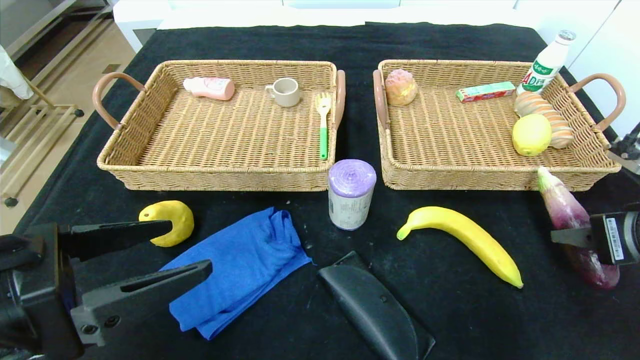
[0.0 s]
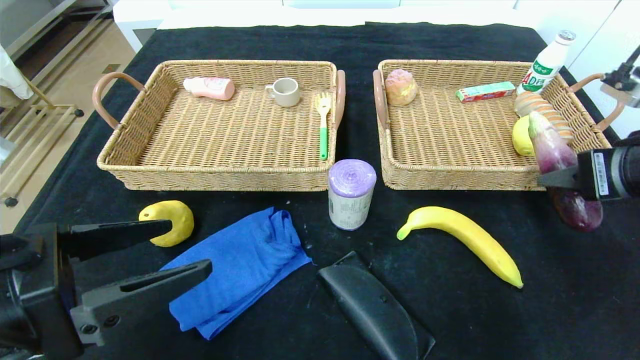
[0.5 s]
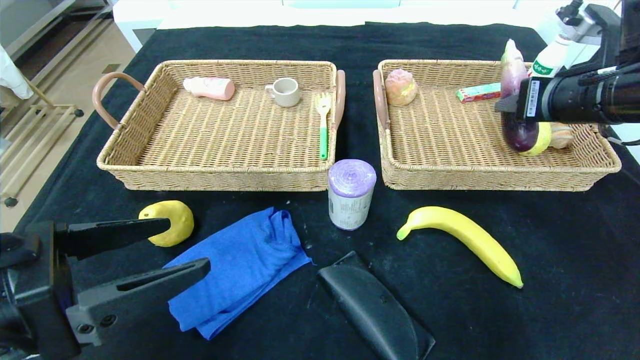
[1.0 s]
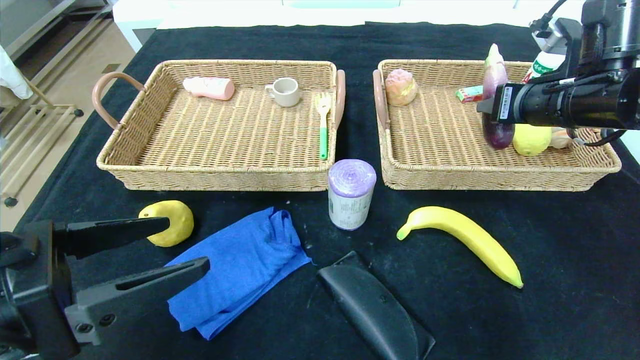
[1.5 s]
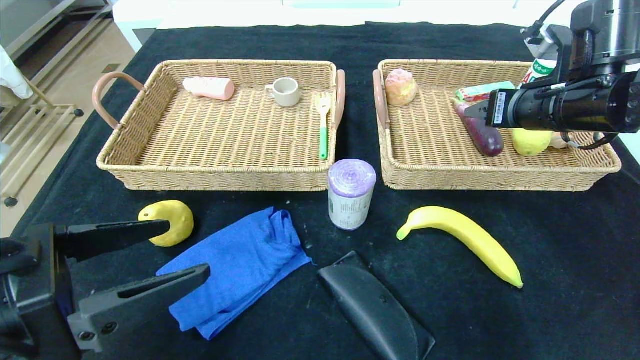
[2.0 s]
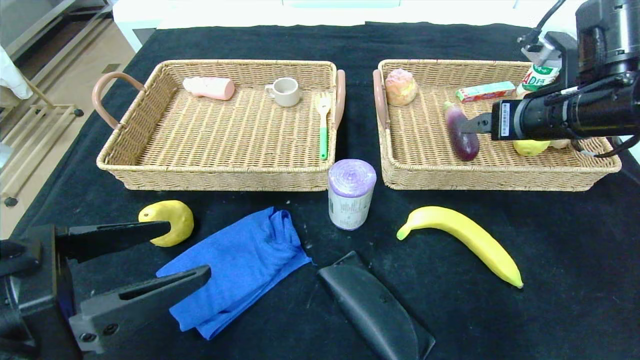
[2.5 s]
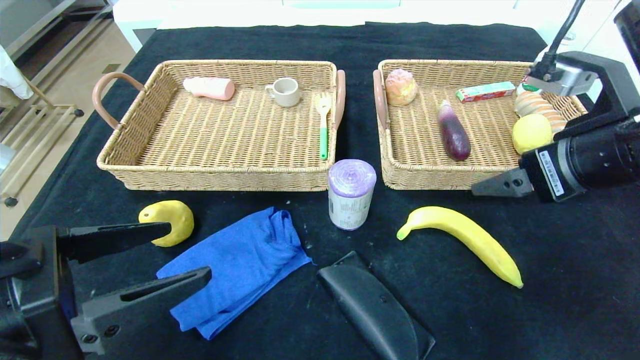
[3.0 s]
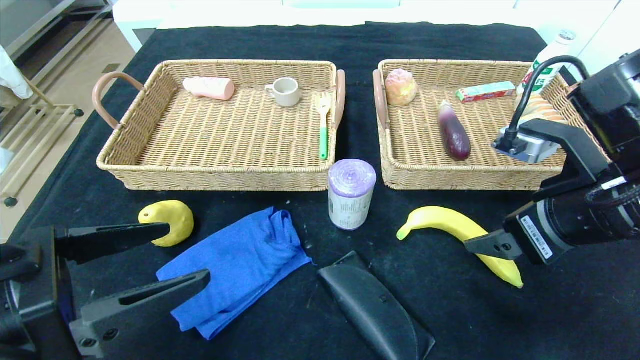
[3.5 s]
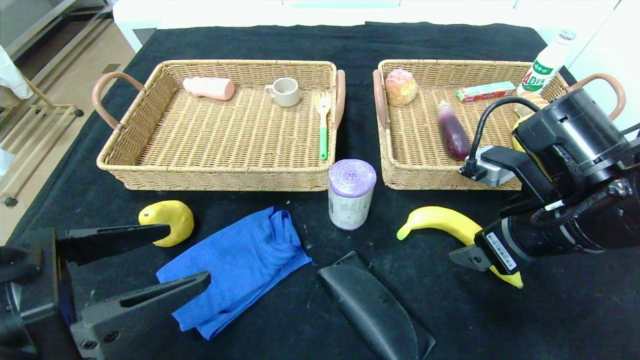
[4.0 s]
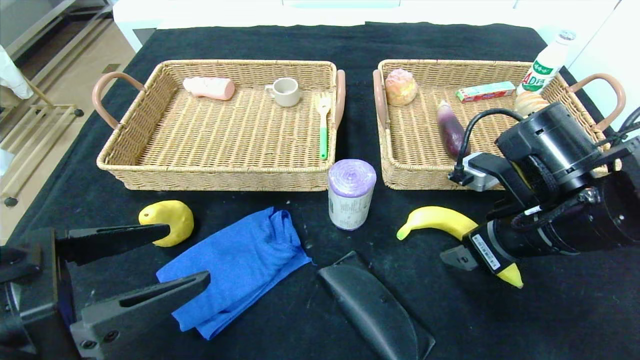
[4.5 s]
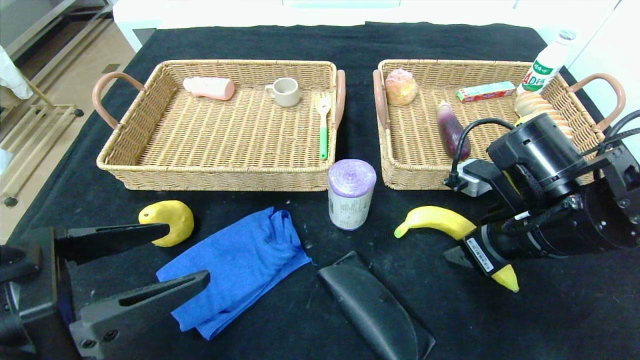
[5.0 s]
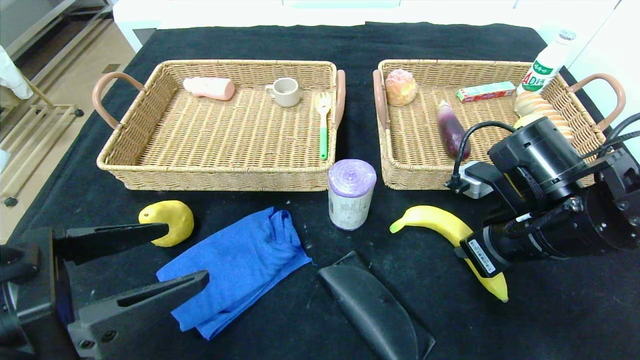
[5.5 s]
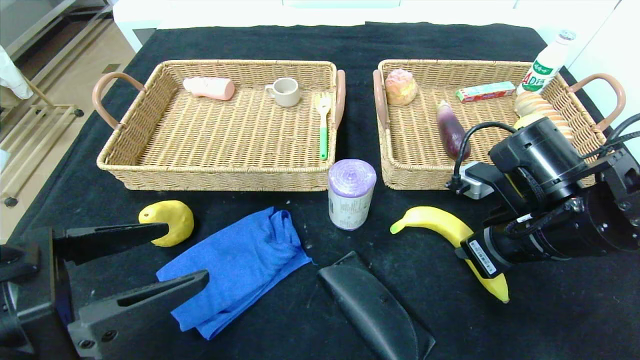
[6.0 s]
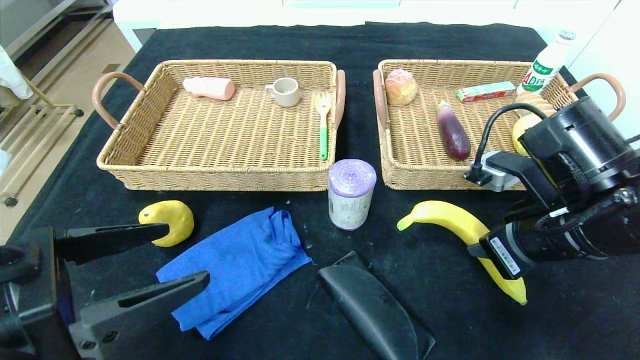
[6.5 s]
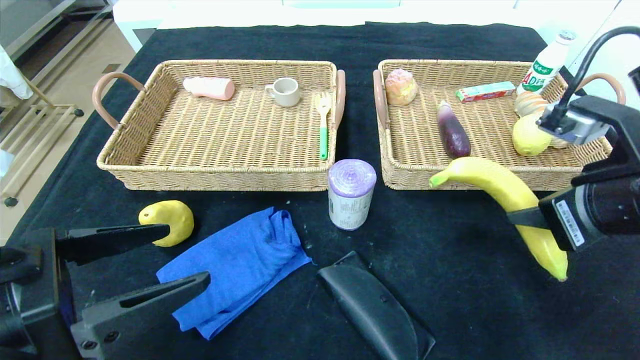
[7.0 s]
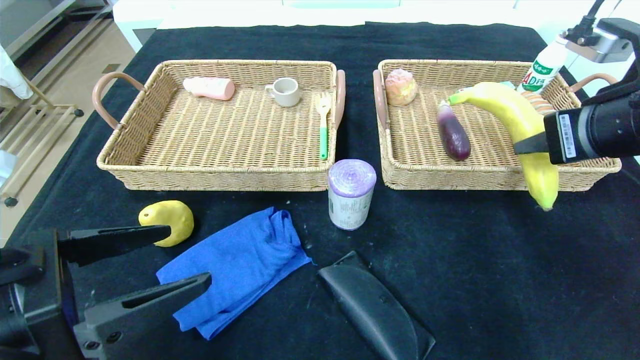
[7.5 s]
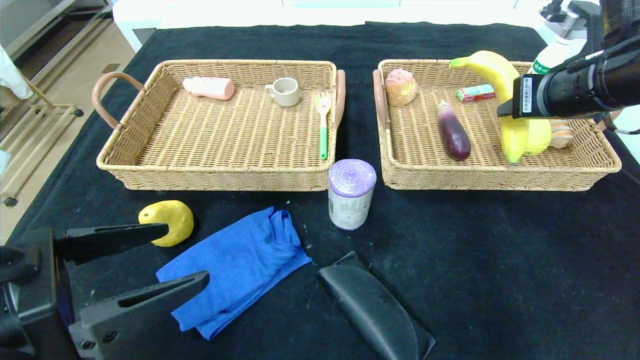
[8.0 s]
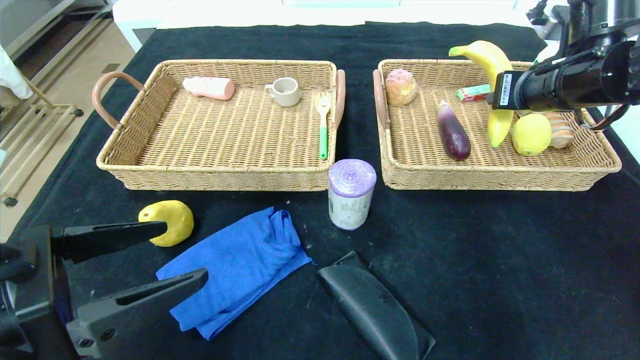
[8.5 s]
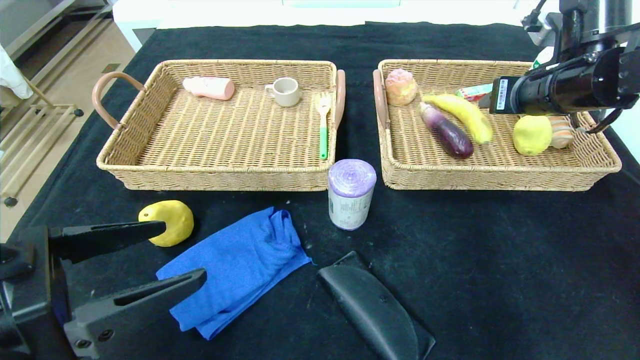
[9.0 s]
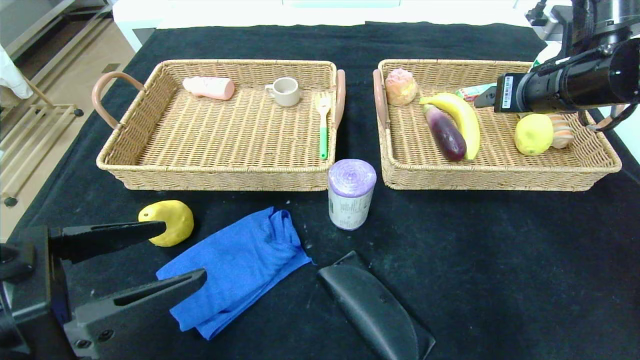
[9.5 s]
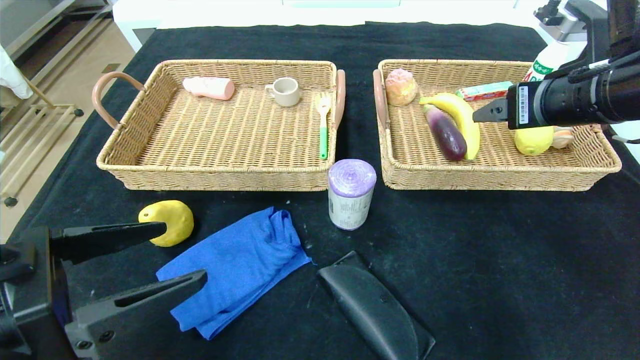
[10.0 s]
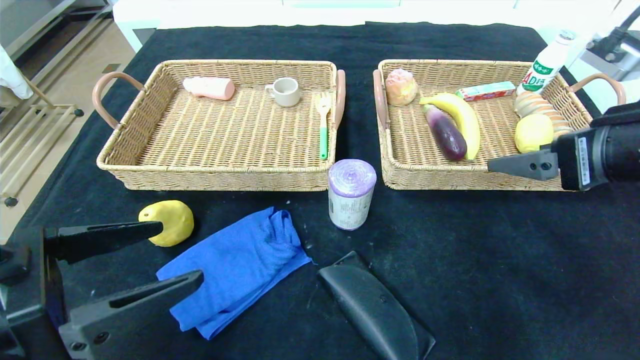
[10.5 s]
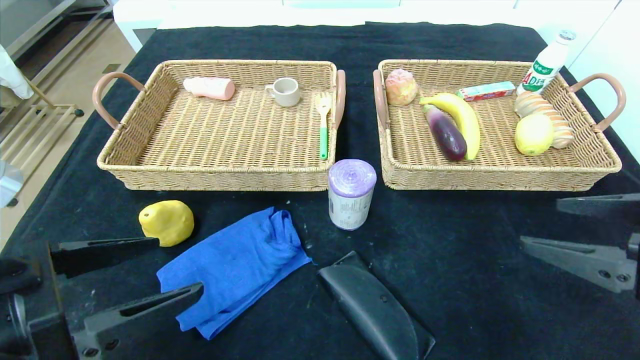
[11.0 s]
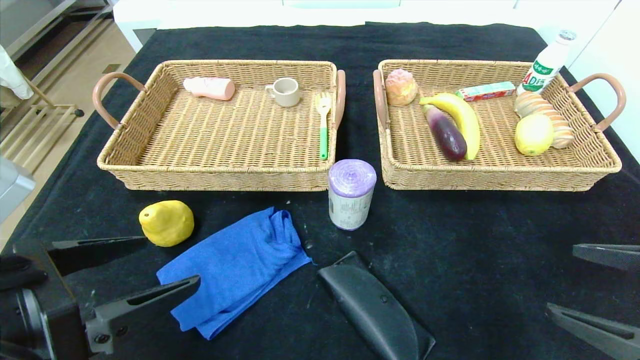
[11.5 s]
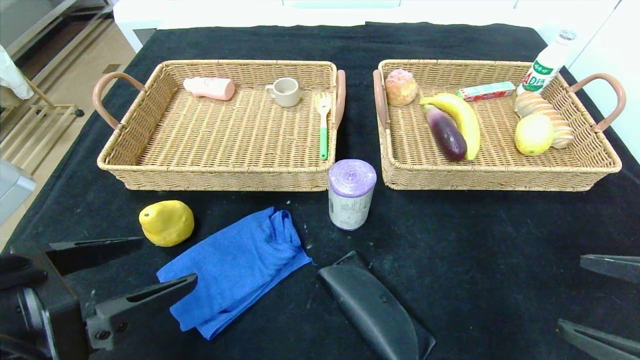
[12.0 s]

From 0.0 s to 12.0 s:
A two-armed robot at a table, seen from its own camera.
Step, from 0.0 s to 3.0 s: Pick up the eggplant and put it in the right basket.
Step, from 3.5 s to 11.0 s: Pick up the banana and put it in the right basket.
From 0.0 s to 2.0 s: The right gripper heads forward and upward, covering roughly 15 cm, and opens.
From 2.0 s to 4.0 s: The right gripper heads backward, downward and to the left, covering approximately 15 cm.
From 4.0 s to 6.0 s: The right gripper closes up.
From 6.0 s to 8.0 s: The right gripper goes approximately 15 cm upward, forward and to the right.
From 8.0 s to 10.0 s: The right gripper opens up.
From 10.0 s to 12.0 s: The right gripper travels backward and downward by about 20 cm.

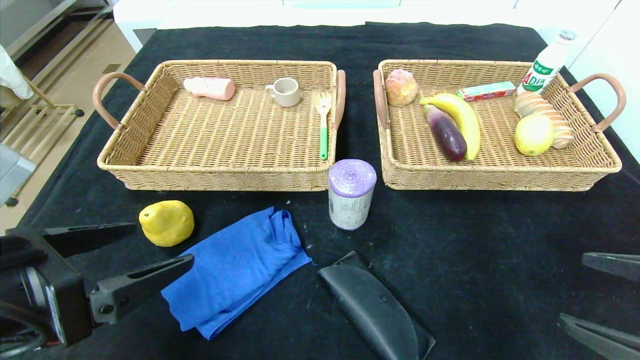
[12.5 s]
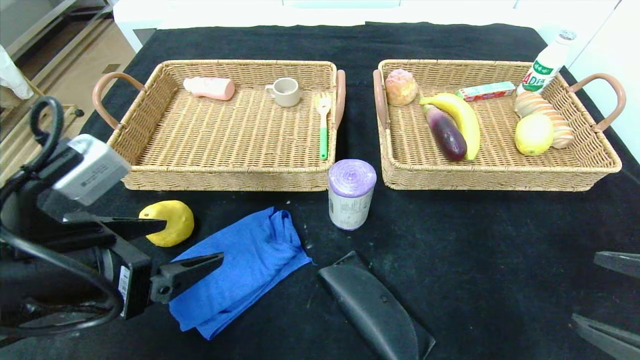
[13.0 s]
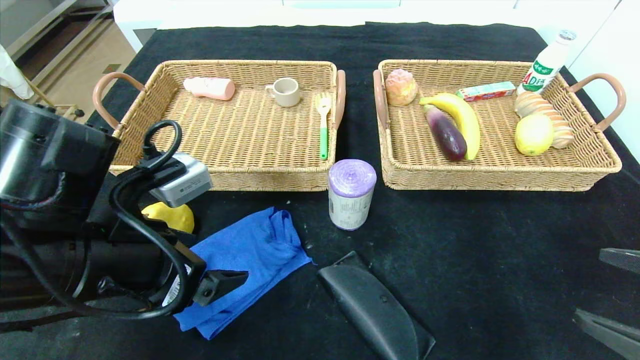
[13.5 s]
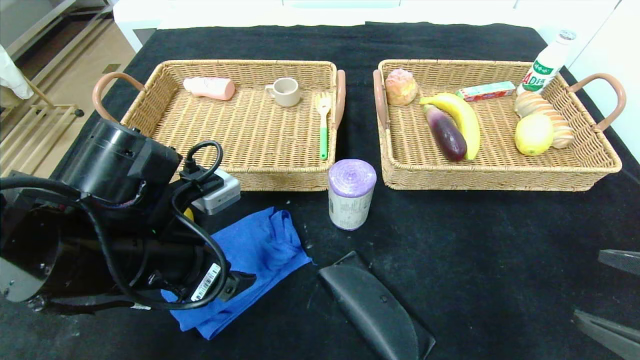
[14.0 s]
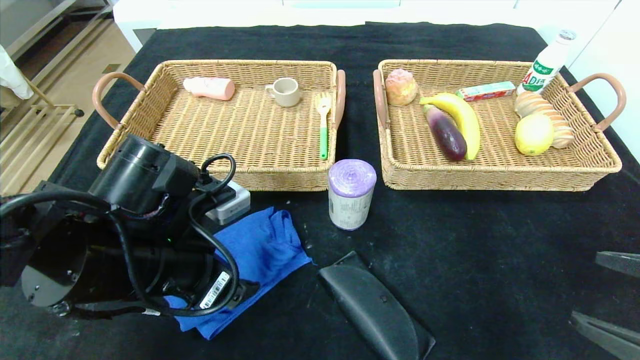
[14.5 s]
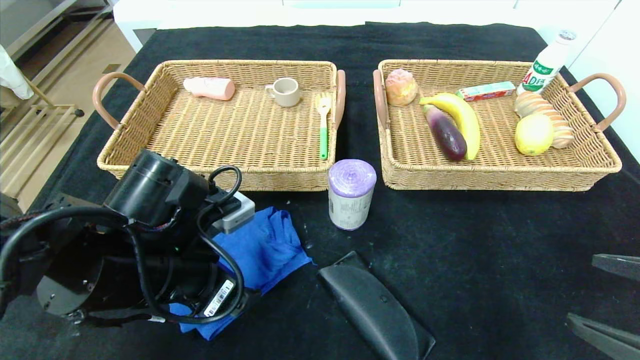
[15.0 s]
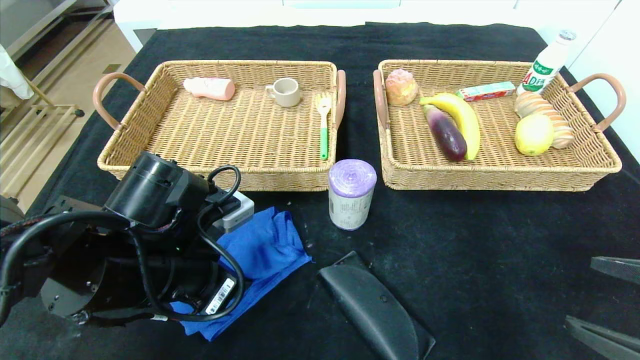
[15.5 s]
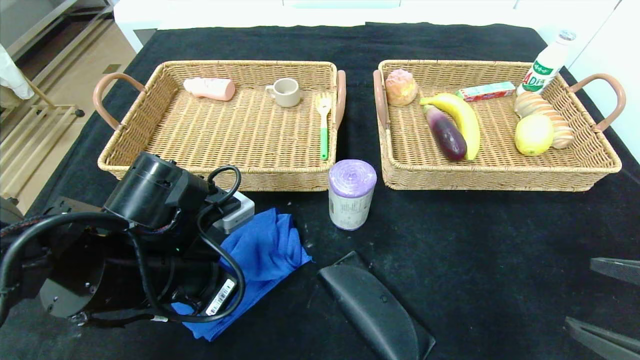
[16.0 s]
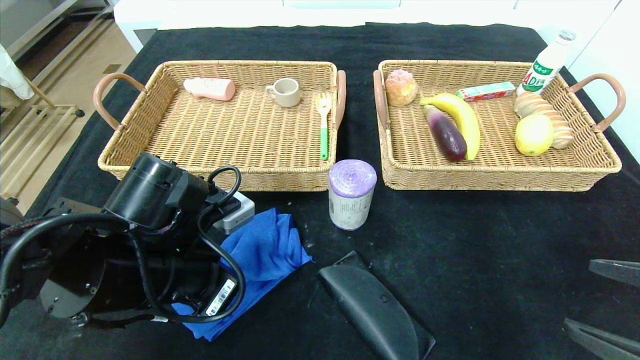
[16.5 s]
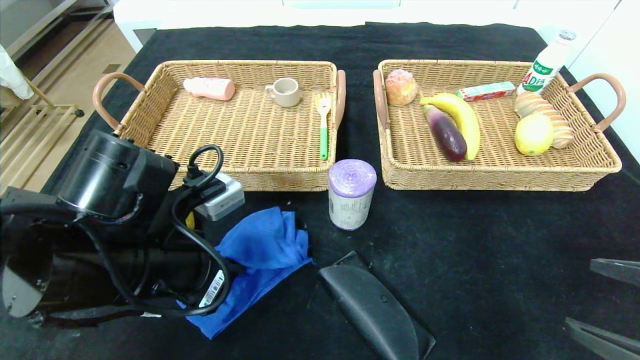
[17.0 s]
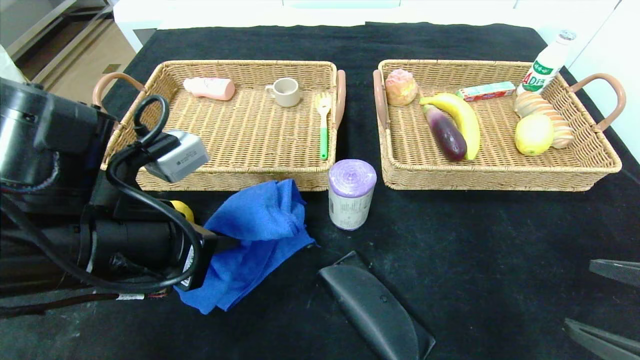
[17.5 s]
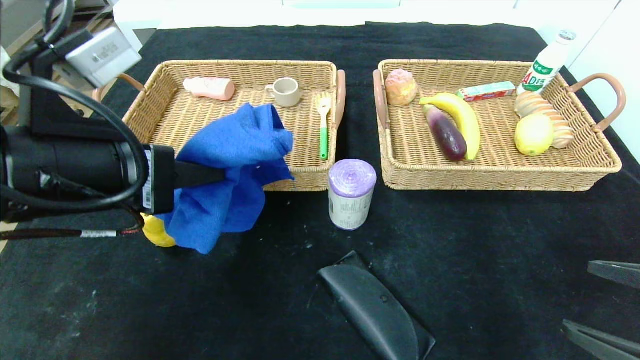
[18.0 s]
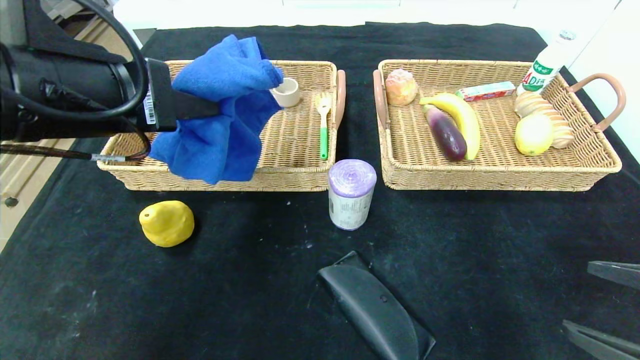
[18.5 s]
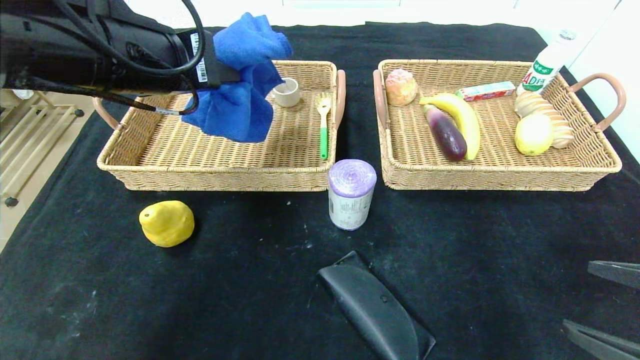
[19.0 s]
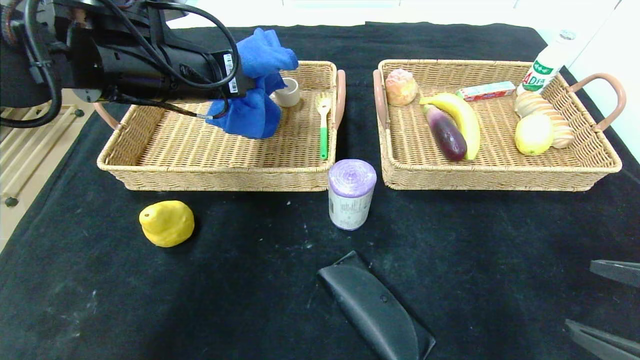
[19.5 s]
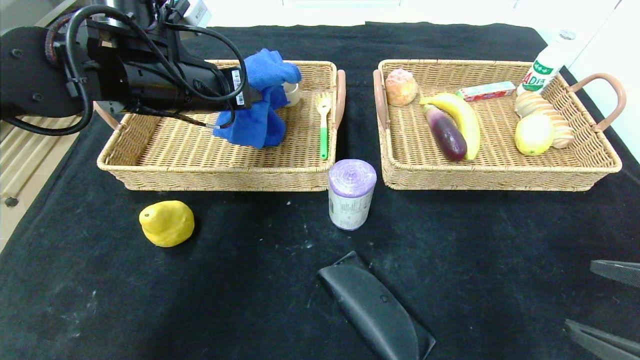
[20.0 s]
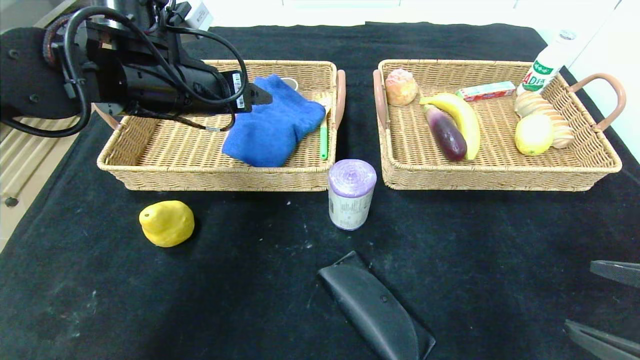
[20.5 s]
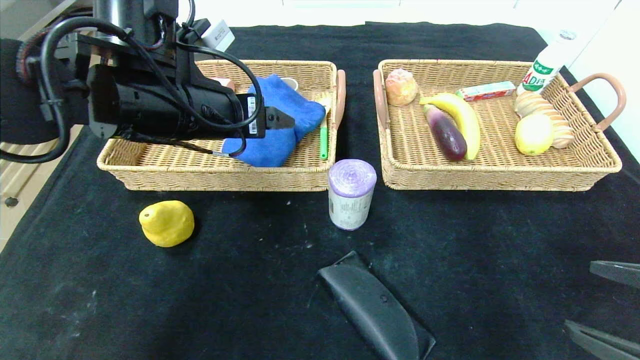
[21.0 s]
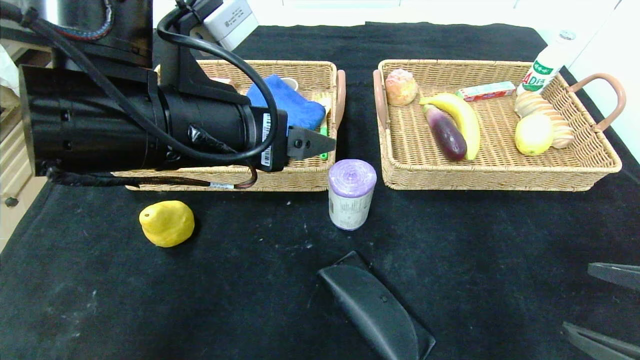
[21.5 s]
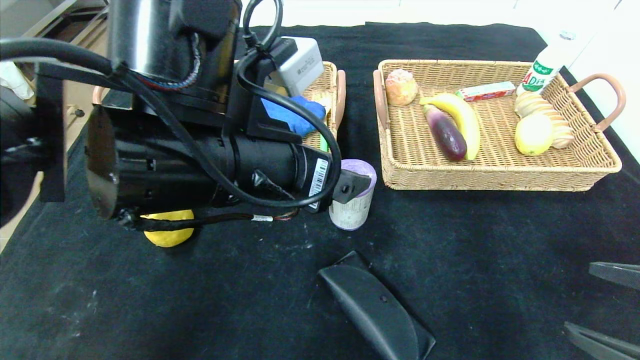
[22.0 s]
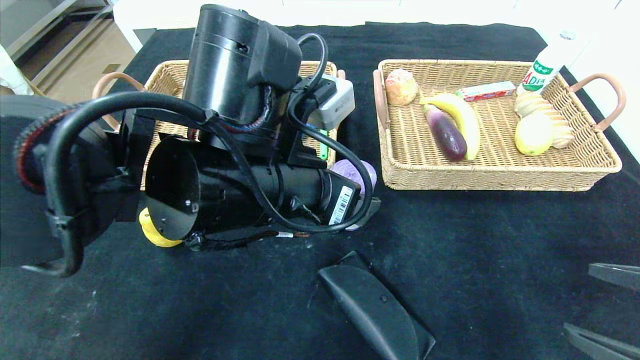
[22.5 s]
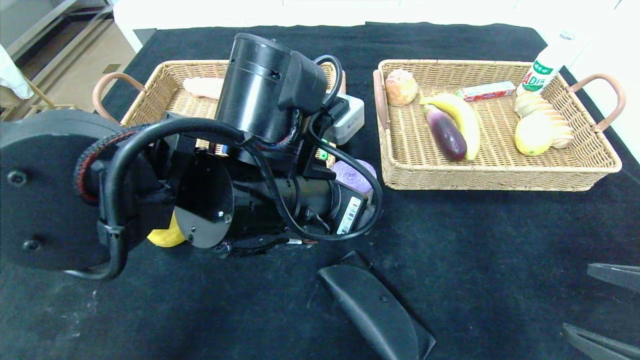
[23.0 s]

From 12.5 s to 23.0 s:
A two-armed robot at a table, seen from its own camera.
Step, from 12.5 s to 22.0 s: Pick up the blue towel and put it in the left basket.
From 12.5 s to 14.5 s: The left gripper moves forward and to the right, approximately 10 cm.
From 14.5 s to 16.5 s: The left gripper closes up.
From 16.5 s to 19.0 s: The left gripper goes approximately 15 cm upward.
From 19.0 s to 21.0 s: The left gripper is displaced downward by some 5 cm, and opens up.
From 21.0 s to 23.0 s: The left gripper heads to the right, backward and downward, covering some 15 cm.
